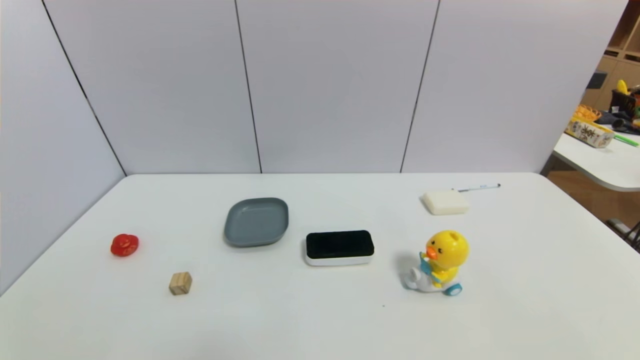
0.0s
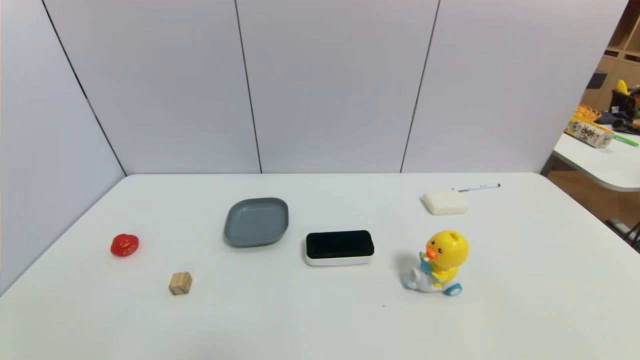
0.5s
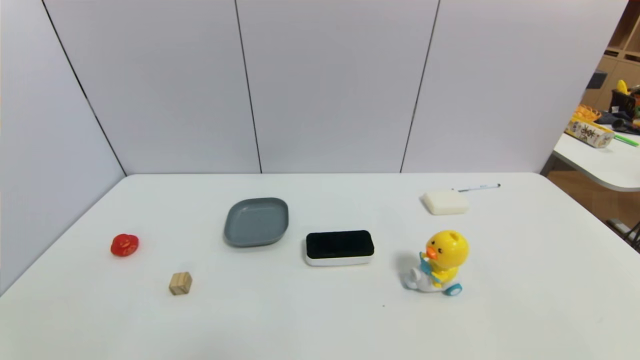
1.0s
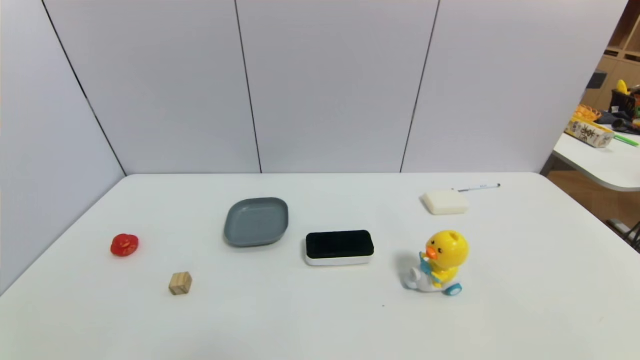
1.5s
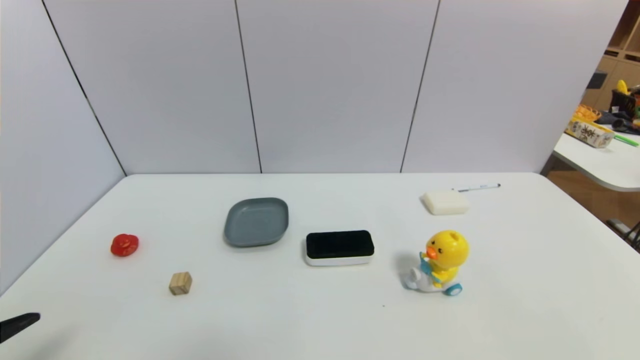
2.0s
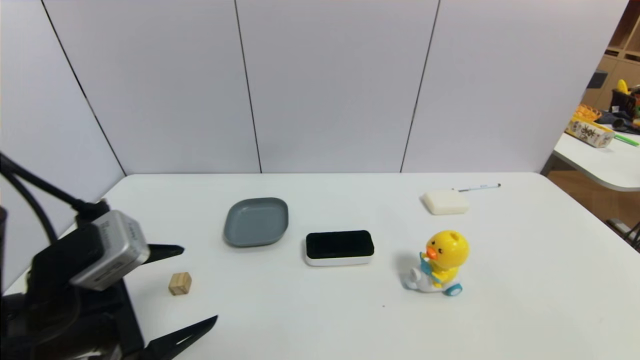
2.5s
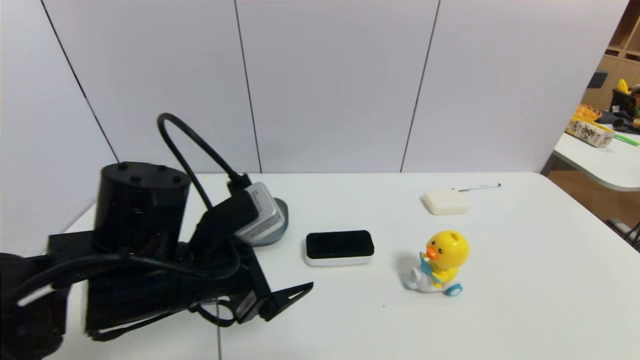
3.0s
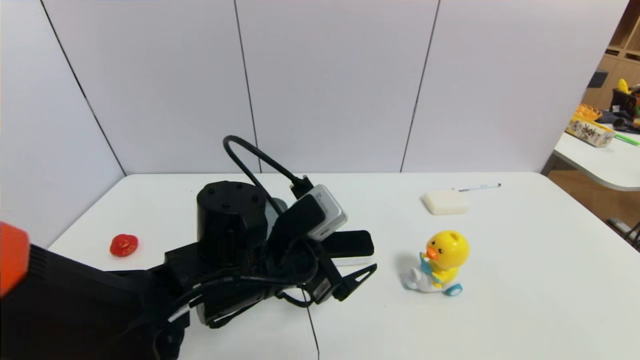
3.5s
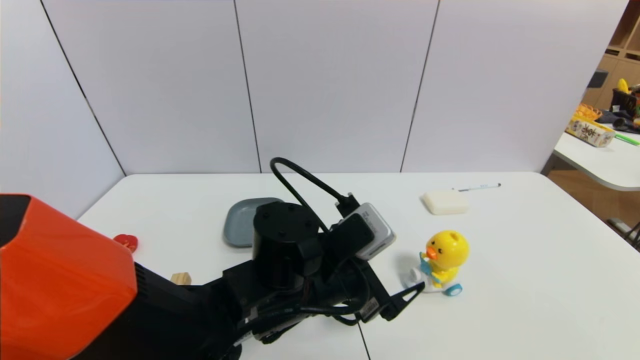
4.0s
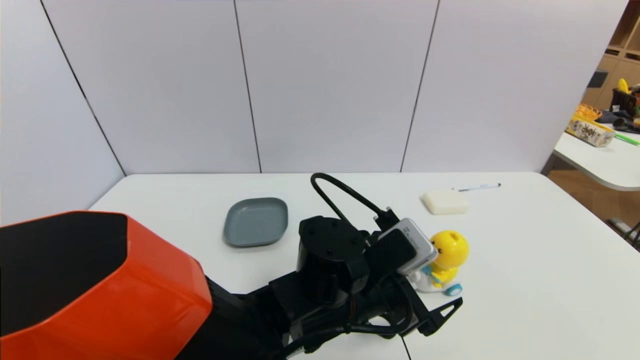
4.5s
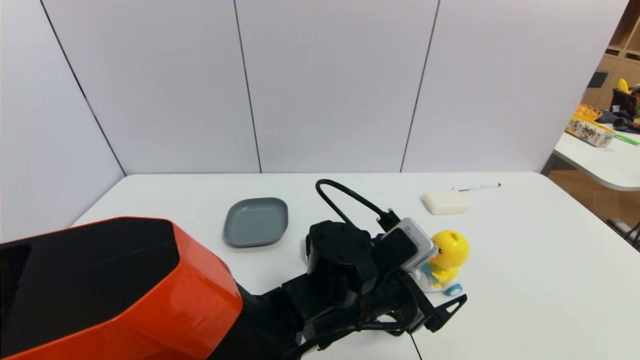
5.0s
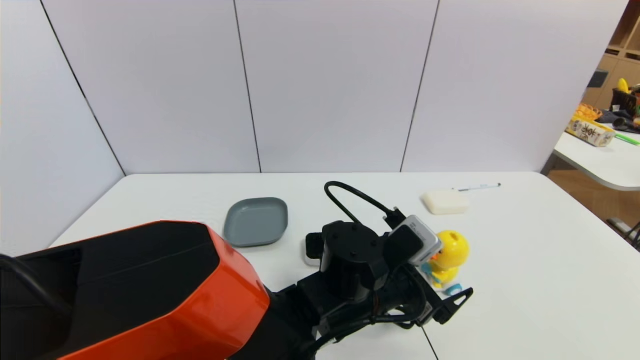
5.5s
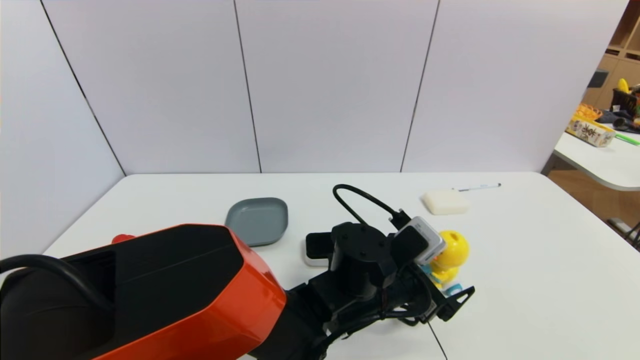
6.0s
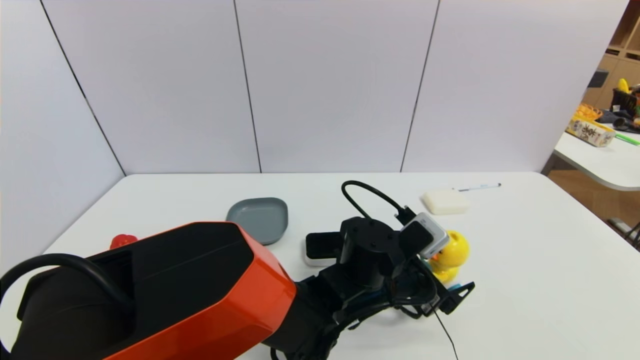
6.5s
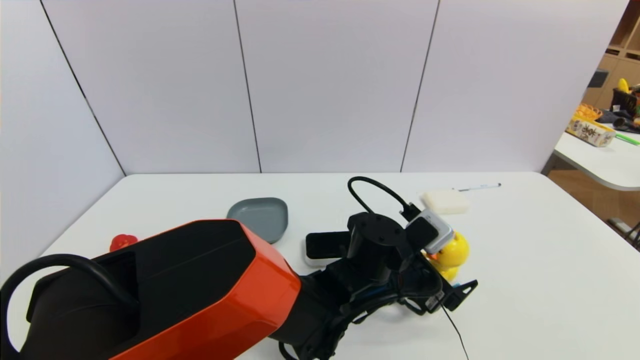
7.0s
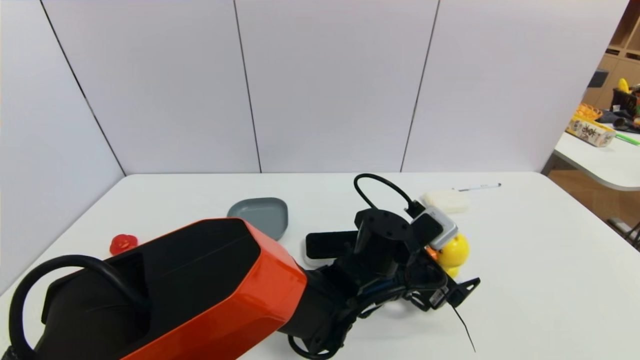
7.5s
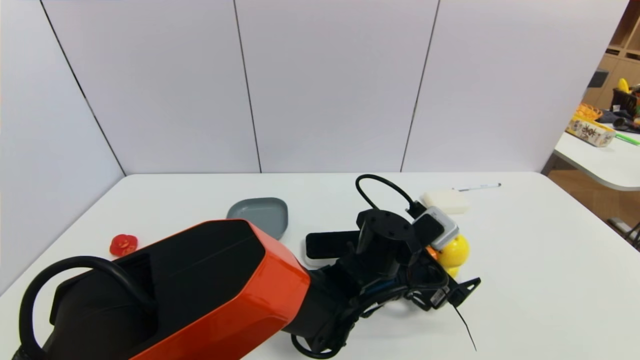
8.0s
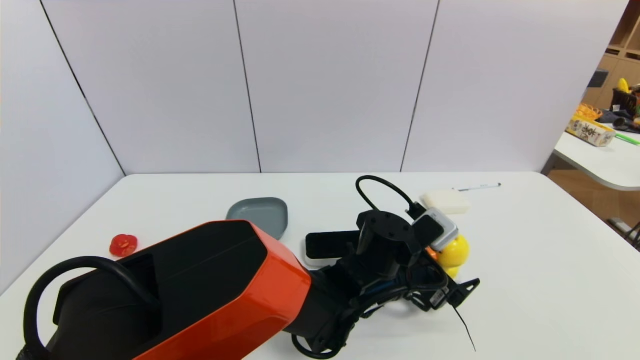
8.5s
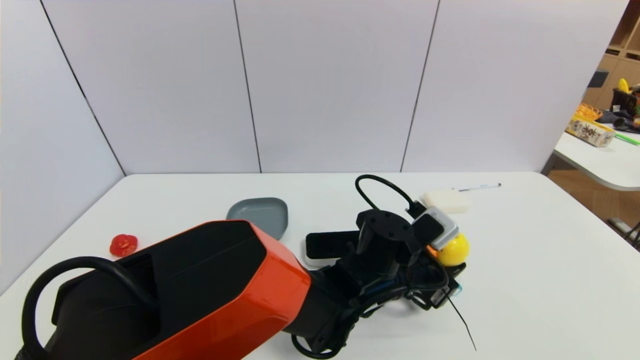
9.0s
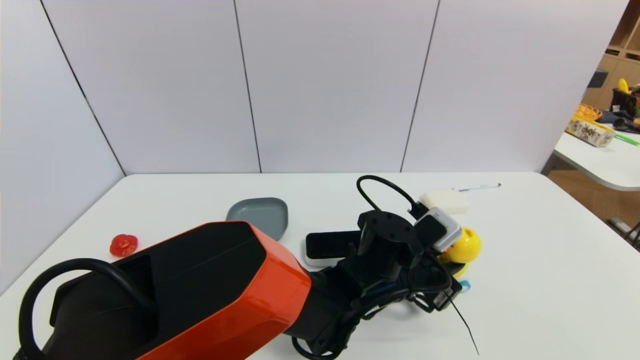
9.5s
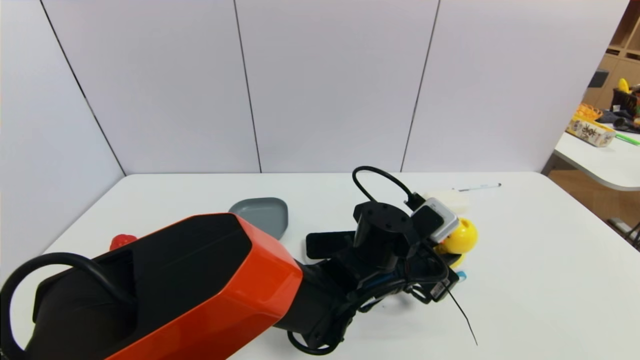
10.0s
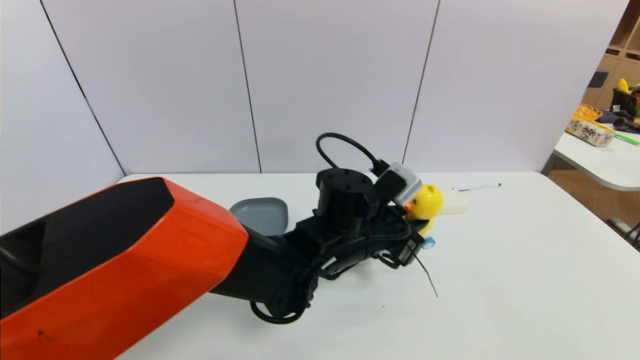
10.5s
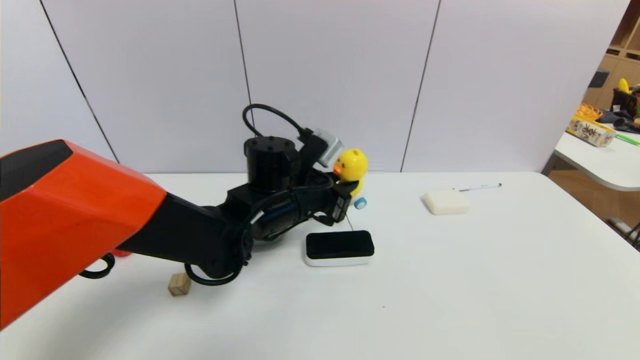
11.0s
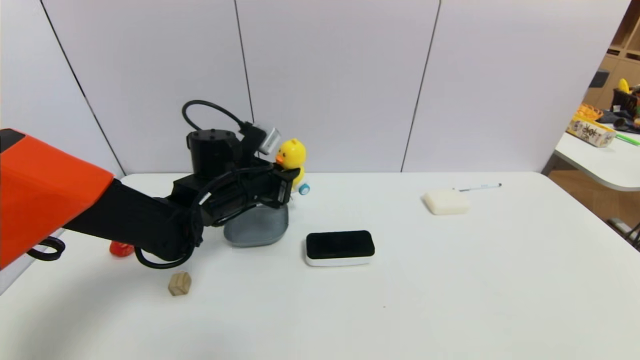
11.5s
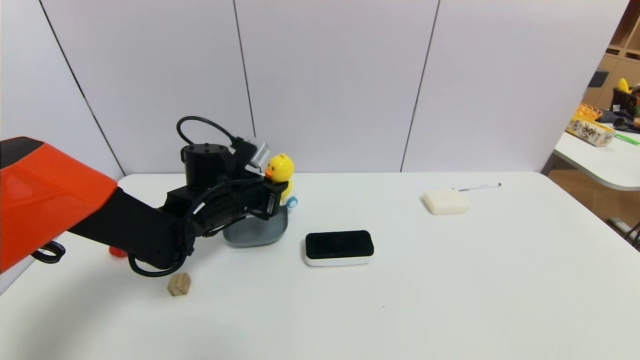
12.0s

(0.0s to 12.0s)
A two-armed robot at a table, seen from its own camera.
Task of the whole recording: use a gripper to pick the target object and place on the dish.
Step, 0.0s - 9.0s: Grasp the duck toy with the left gripper.
2.0s - 4.0s: The left gripper goes roughly 35 cm to the right and forward.
4.0s - 6.0s: The left gripper shifts roughly 10 cm to the right.
6.0s - 8.0s: The grippers move only a little.
8.0s - 10.0s: The left gripper closes.
10.0s - 12.0s: The left gripper travels to the left by roughly 25 cm.

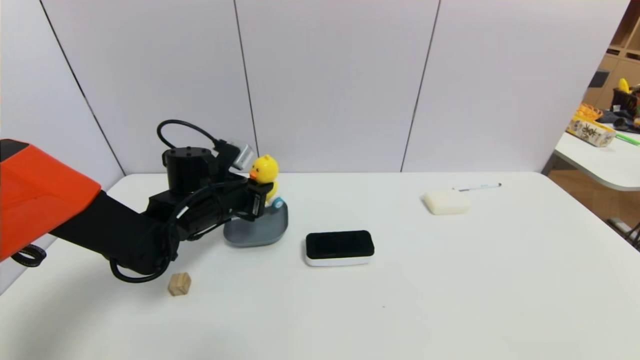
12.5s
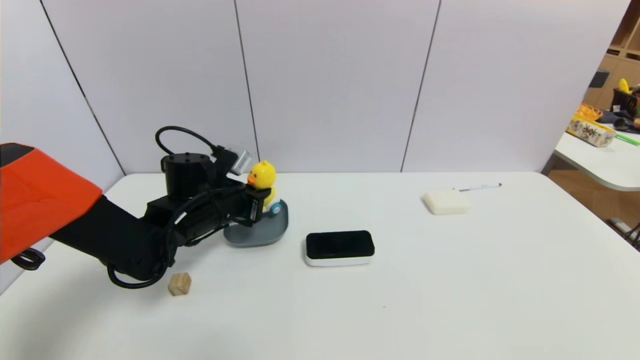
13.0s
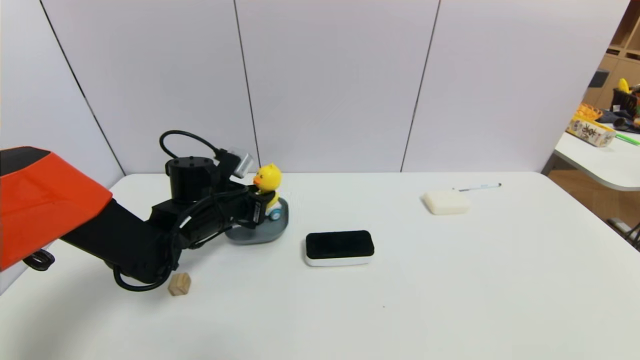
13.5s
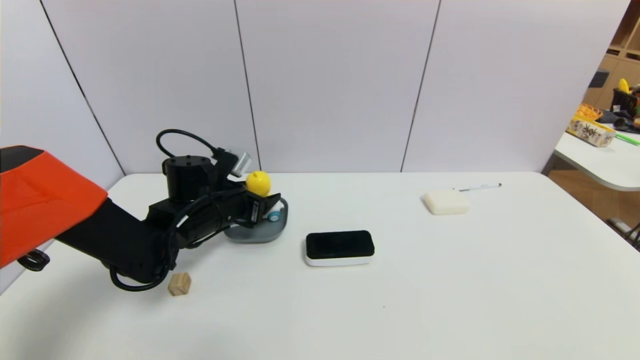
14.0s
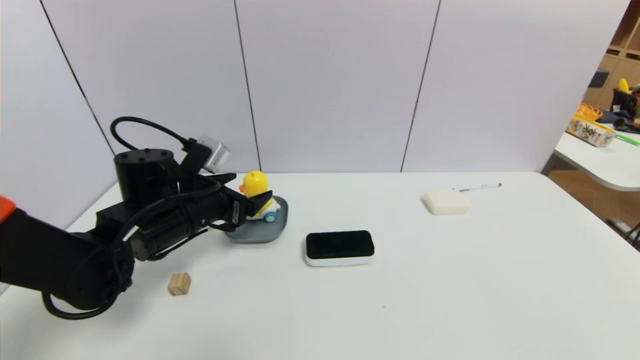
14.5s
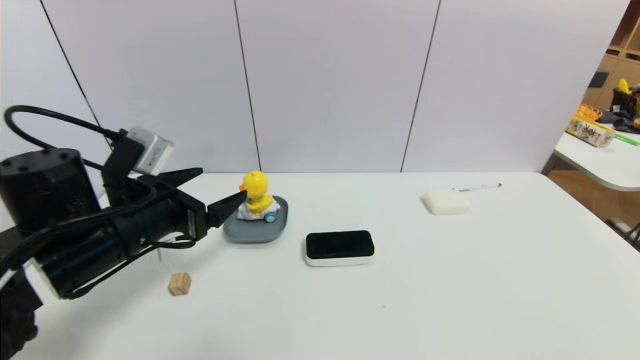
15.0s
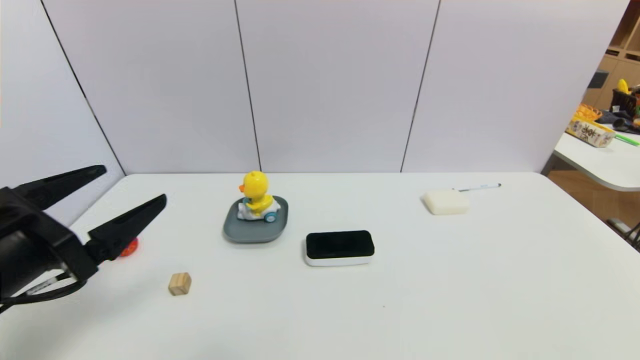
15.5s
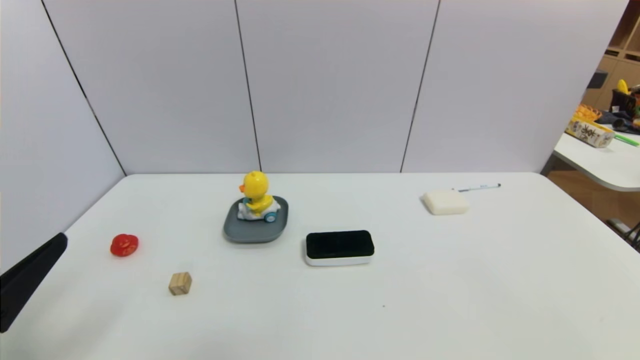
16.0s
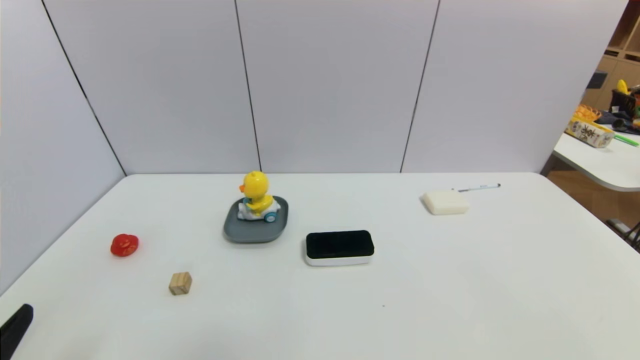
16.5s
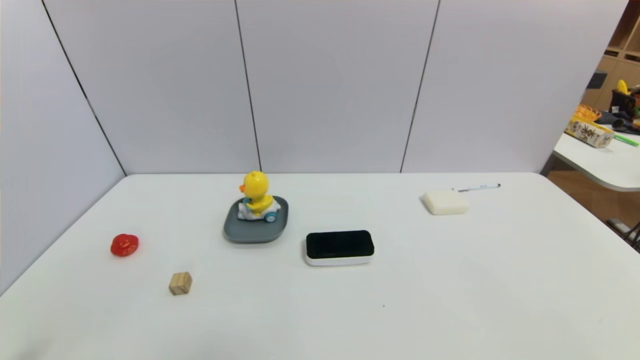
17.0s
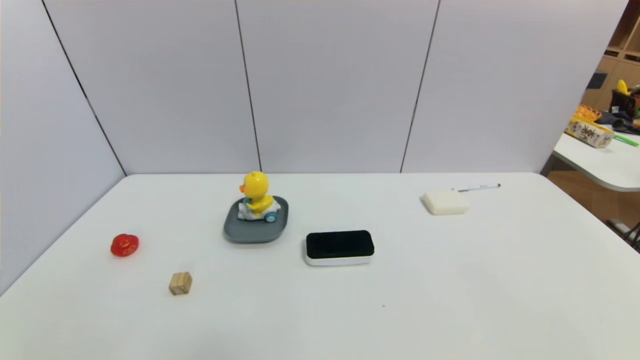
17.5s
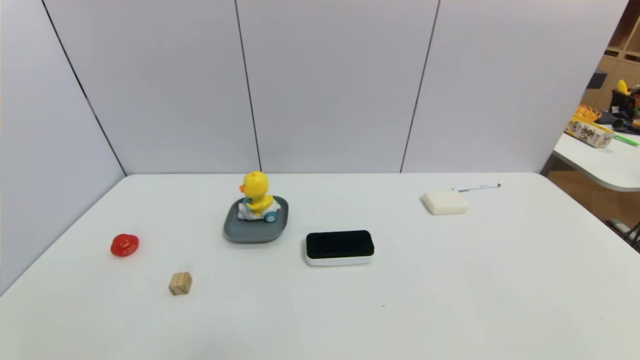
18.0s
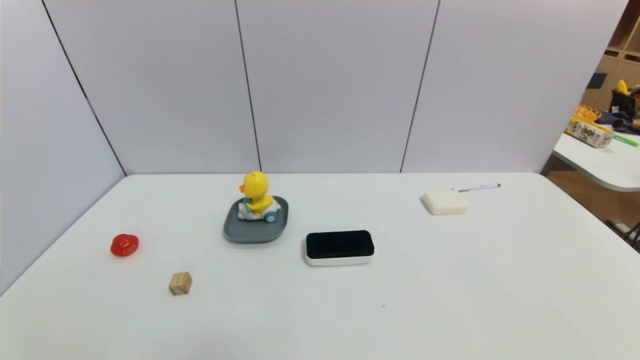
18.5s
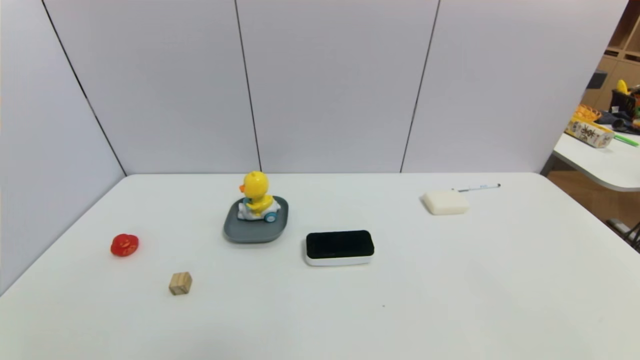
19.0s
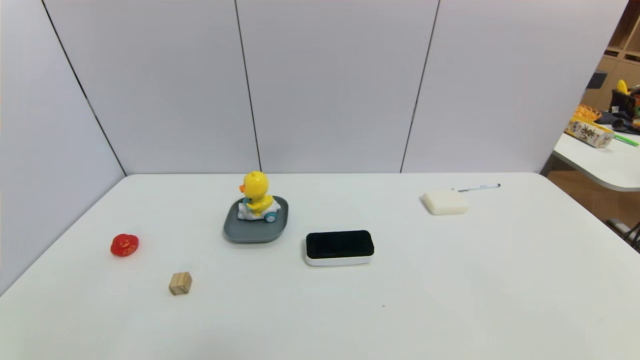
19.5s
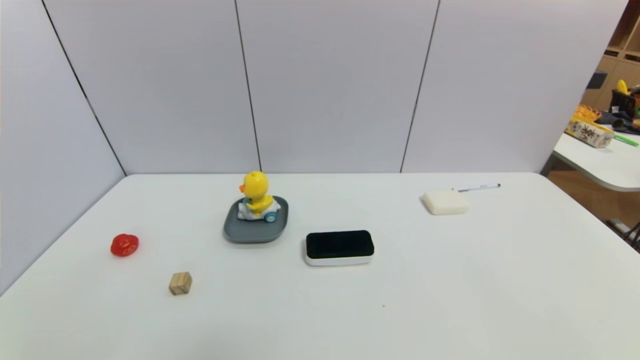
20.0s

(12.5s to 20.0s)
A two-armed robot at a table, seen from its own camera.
Task of the whole recording: use a gripper to pick the target object and place on the dish.
Step, 12.5s - 14.5s: Place the duck toy on the dish with the left gripper.
12.5s - 14.5s: The left gripper heads backward, covering approximately 5 cm, and opens.
14.5s - 16.5s: The left gripper shifts roughly 30 cm backward.
